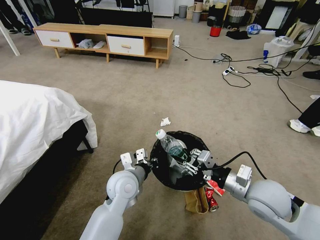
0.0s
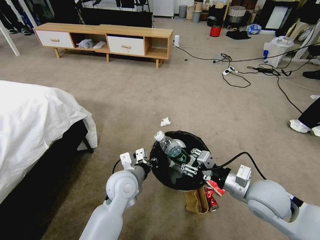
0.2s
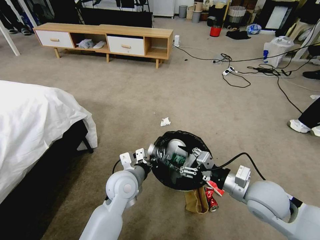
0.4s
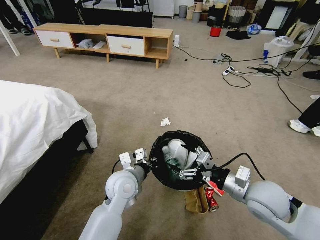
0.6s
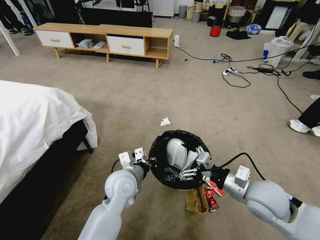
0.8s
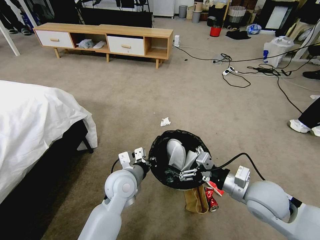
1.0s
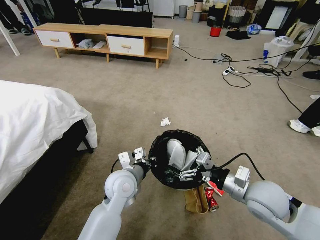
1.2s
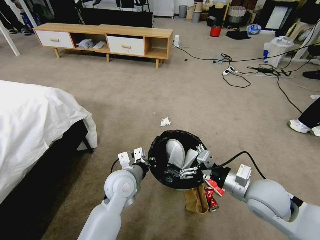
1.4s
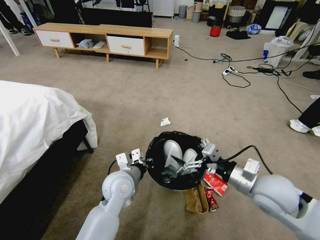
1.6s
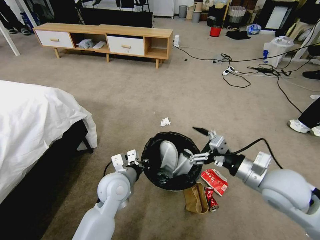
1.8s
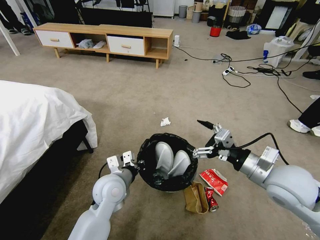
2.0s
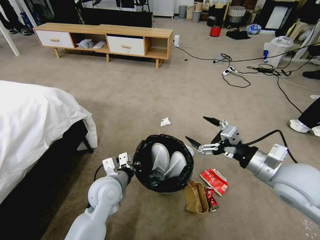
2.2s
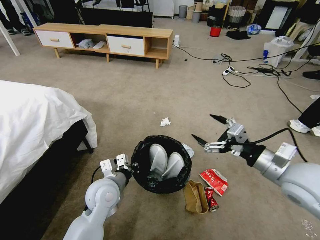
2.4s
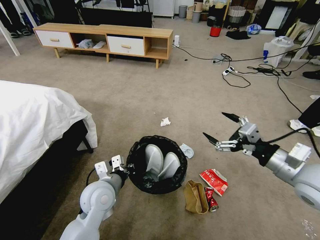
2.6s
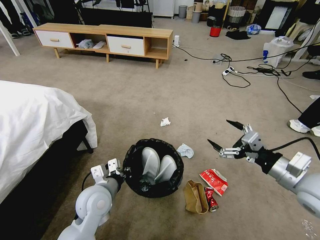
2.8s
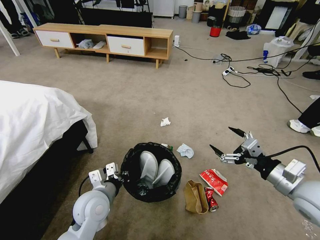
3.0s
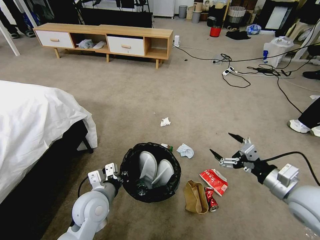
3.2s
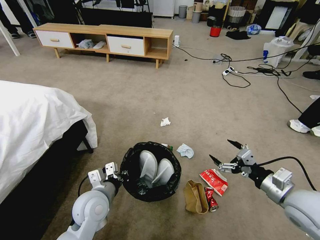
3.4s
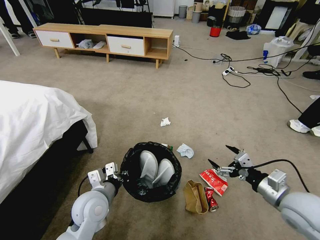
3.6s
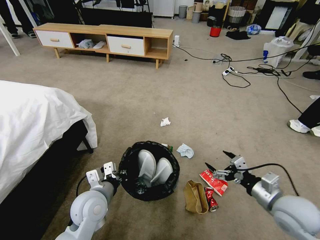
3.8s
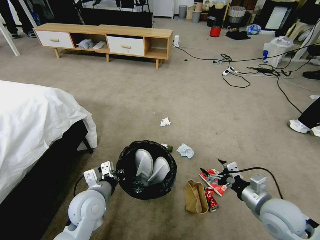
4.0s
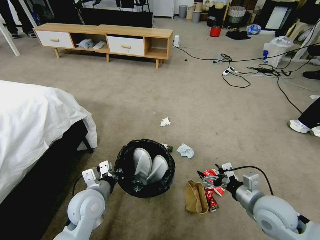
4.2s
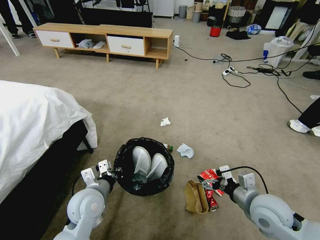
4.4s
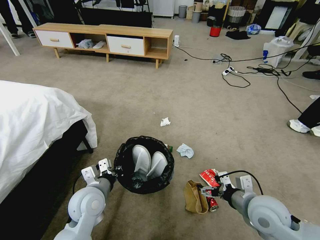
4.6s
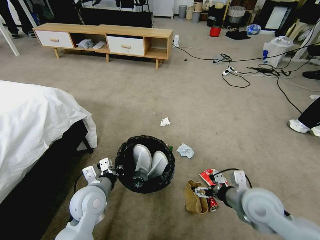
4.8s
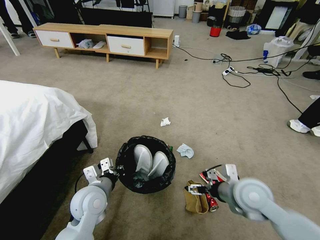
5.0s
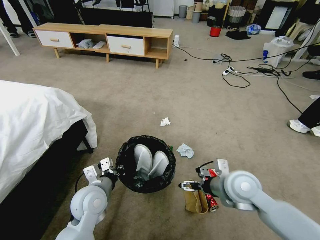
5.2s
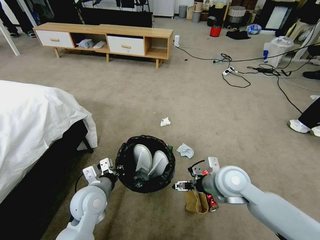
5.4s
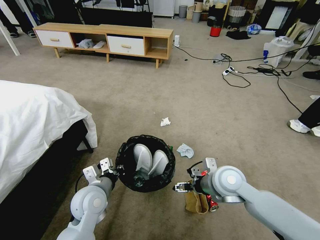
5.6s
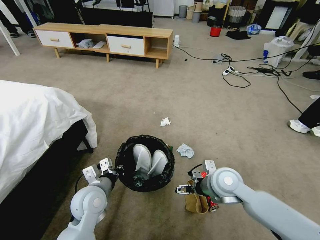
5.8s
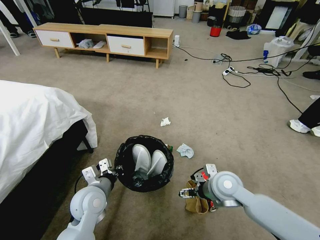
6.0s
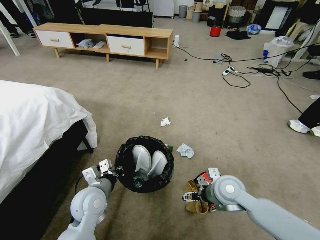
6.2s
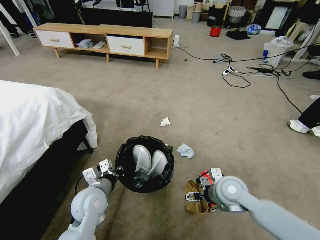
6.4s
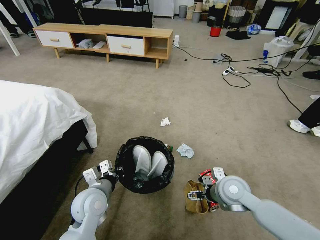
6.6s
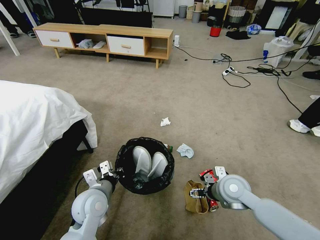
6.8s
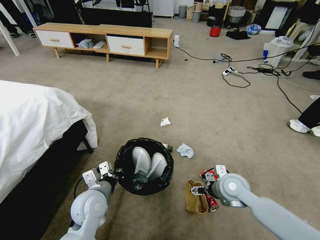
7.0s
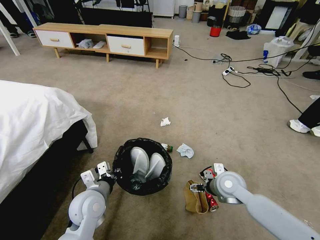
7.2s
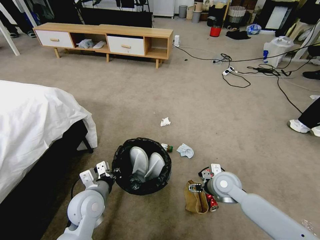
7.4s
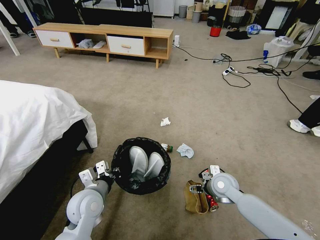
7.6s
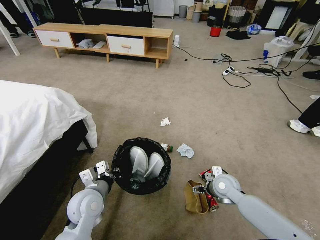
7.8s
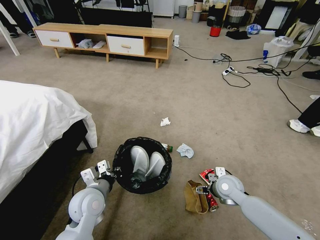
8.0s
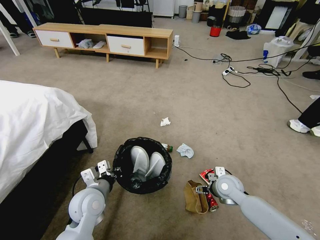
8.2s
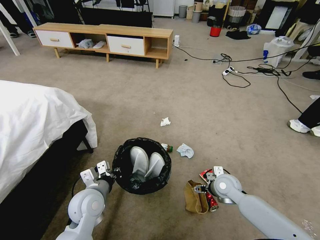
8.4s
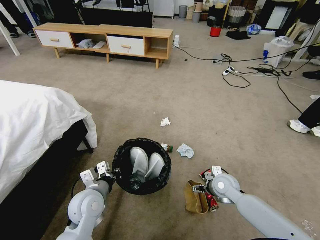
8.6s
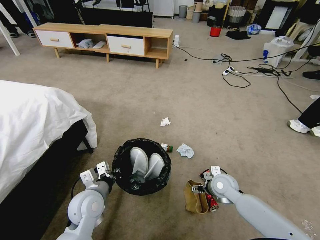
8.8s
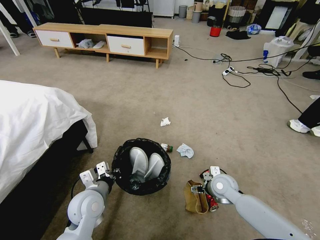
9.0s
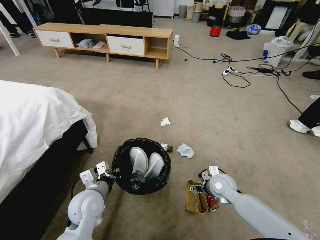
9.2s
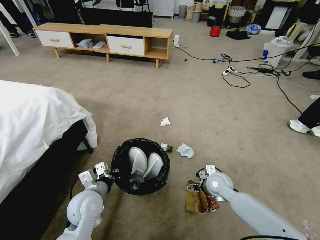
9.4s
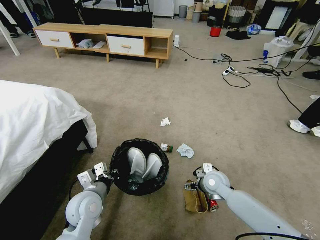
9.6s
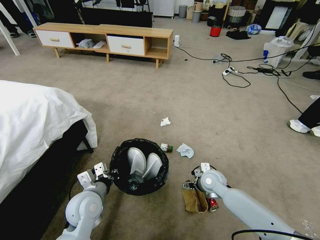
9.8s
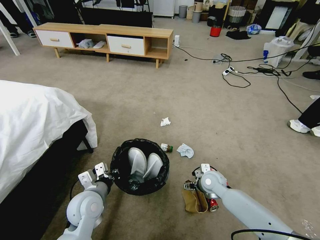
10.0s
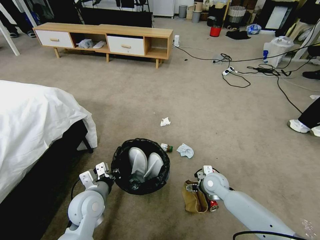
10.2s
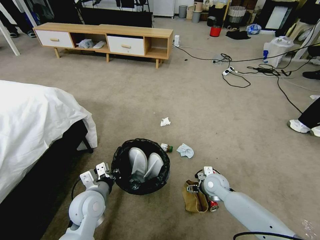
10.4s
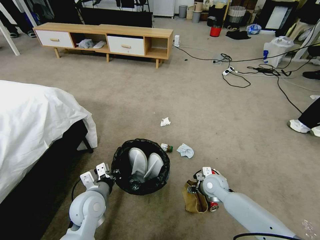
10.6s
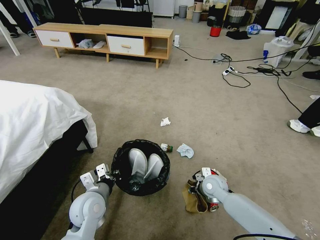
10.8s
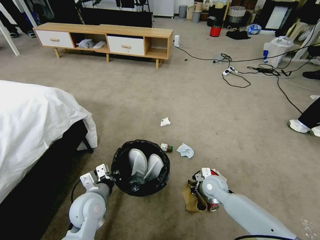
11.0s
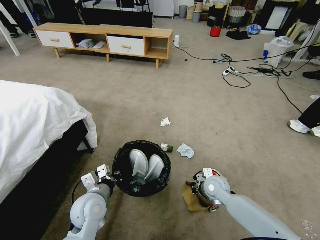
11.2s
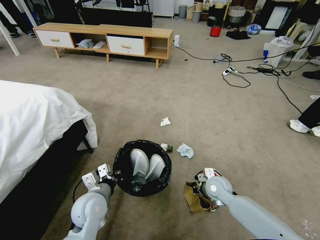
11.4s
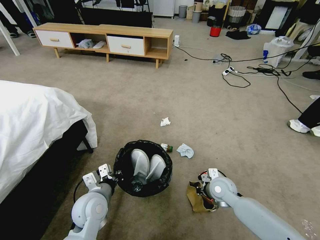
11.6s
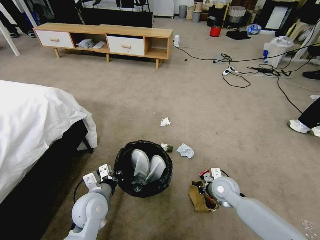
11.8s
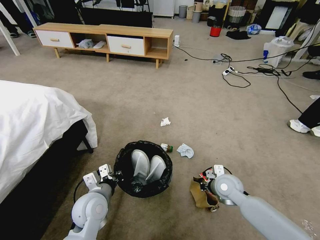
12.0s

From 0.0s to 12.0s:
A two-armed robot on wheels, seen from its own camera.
Task of the whole recording: Pick up the trash bin, then pick up the garbage from the floor and place it into the trash bin.
From 0.0s to 1.6s: The right gripper opens its fingers.
From 1.6s to 3.0s: The right gripper travels to the right by some 10 cm. Meanwhile the left gripper moves to the left and backward, some 10 cm.
From 3.0s to 4.4s: The right gripper heads downward and to the left, covering about 10 cm.
From 4.4s to 6.0s: The right gripper goes about 10 cm to the left and forward.
From 6.0s to 7.6s: The right gripper goes approximately 10 cm downward.
From 7.6s to 10.4s: The grippers stay close to where they were, moving slightly.
From 10.4s to 12.0s: The right gripper changes place by approximately 5 cm, and closes its fingers.

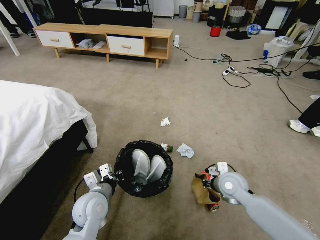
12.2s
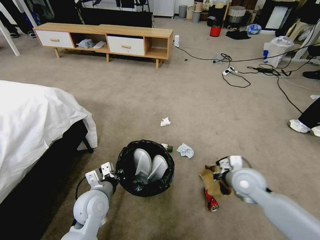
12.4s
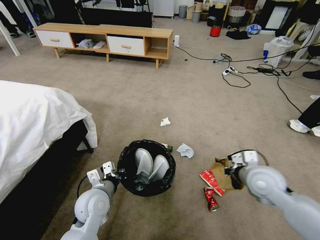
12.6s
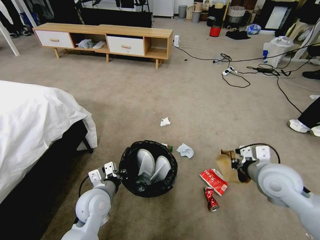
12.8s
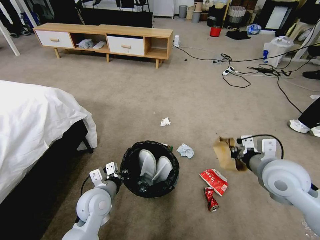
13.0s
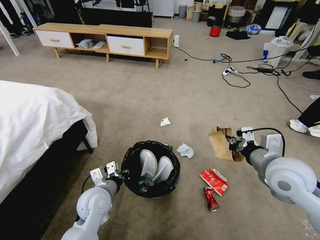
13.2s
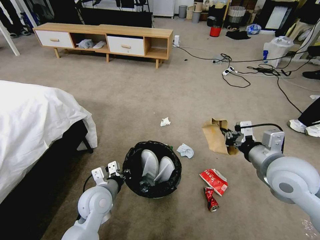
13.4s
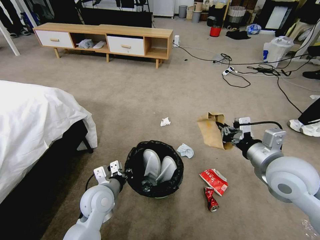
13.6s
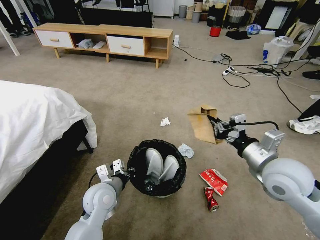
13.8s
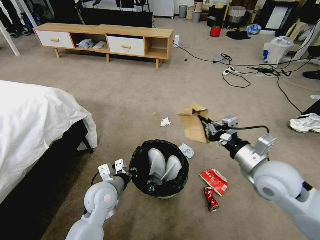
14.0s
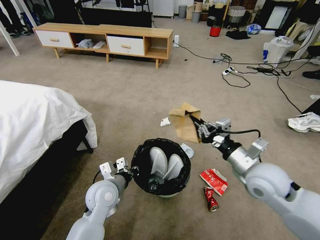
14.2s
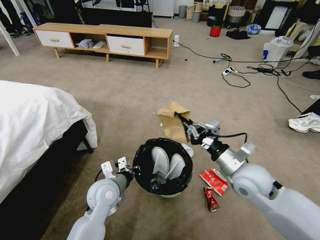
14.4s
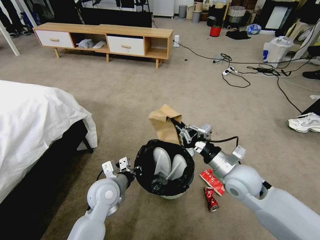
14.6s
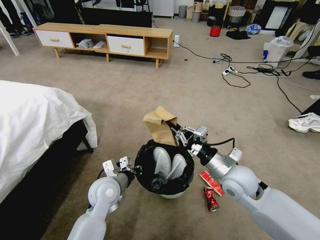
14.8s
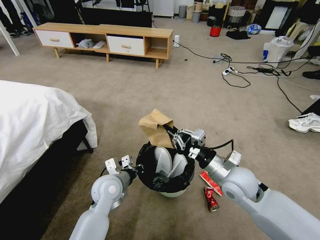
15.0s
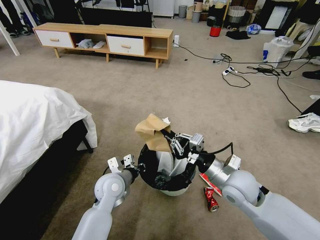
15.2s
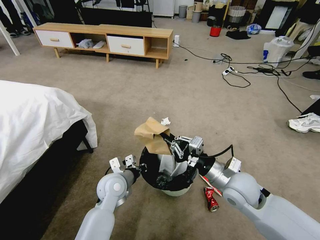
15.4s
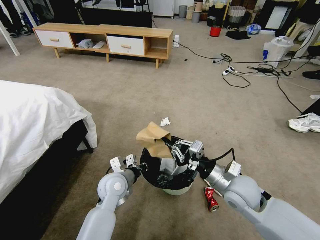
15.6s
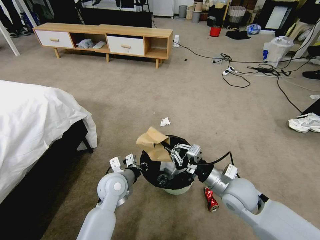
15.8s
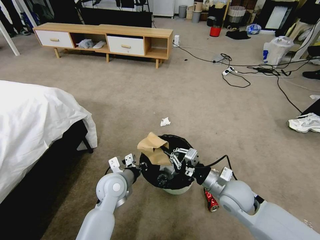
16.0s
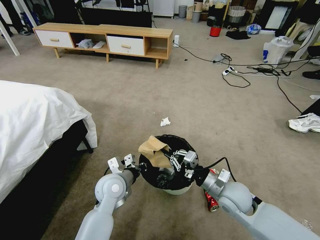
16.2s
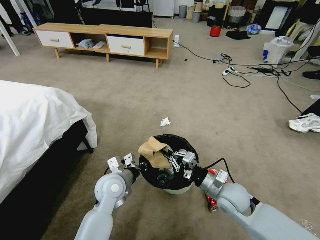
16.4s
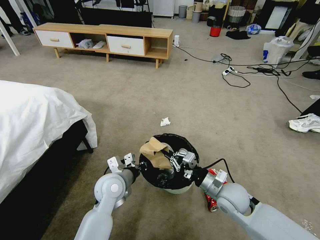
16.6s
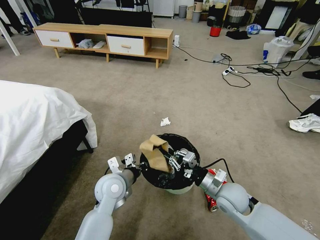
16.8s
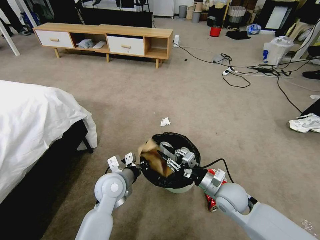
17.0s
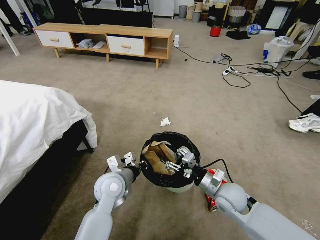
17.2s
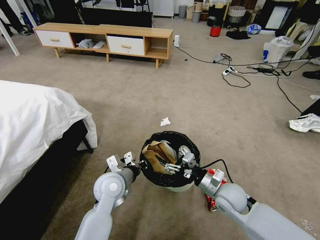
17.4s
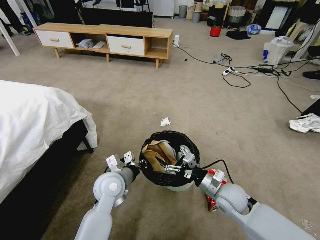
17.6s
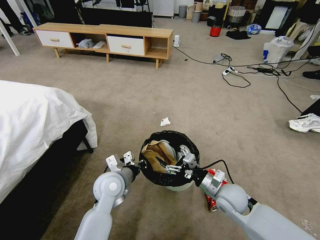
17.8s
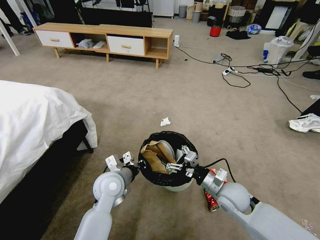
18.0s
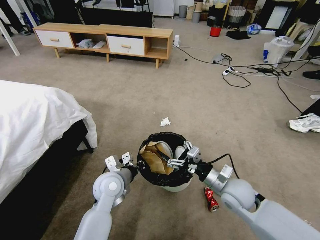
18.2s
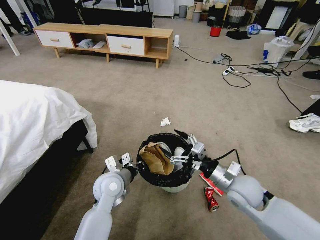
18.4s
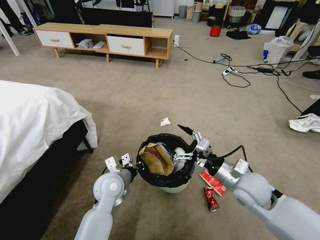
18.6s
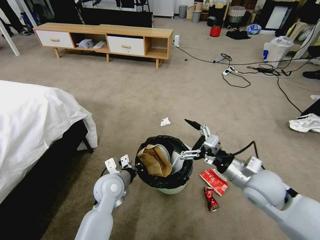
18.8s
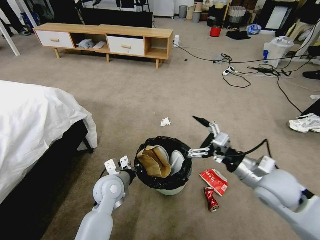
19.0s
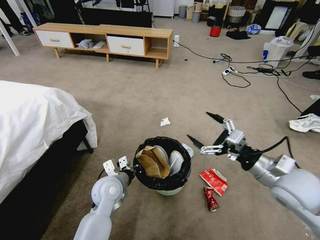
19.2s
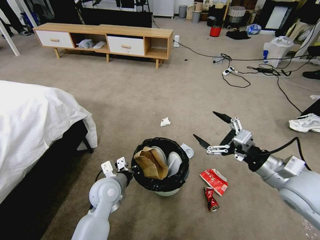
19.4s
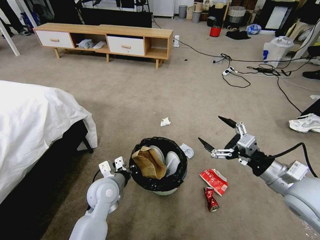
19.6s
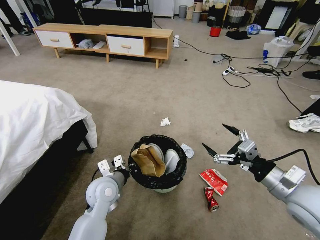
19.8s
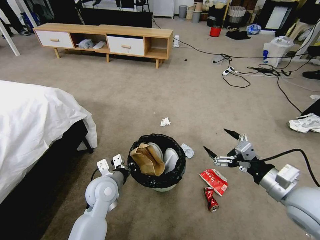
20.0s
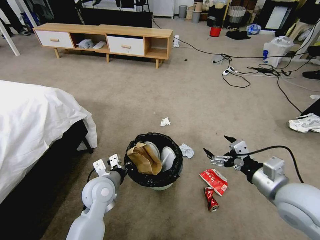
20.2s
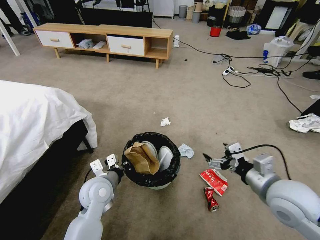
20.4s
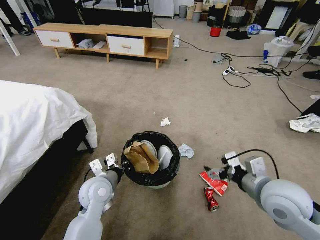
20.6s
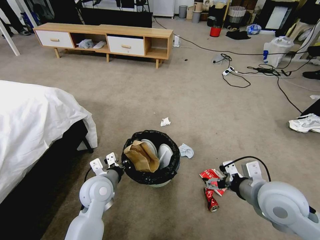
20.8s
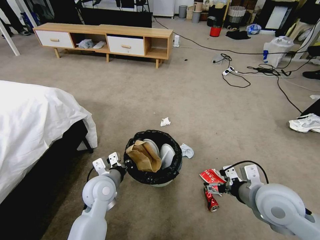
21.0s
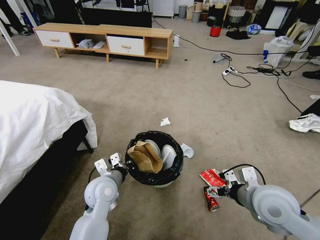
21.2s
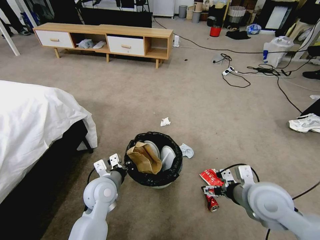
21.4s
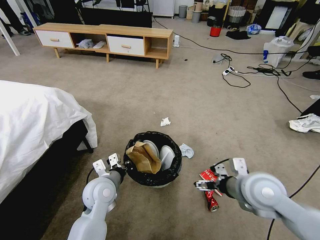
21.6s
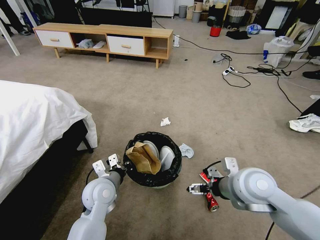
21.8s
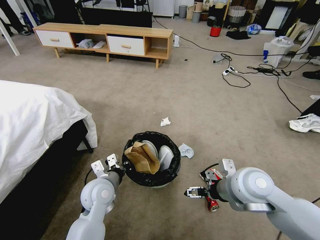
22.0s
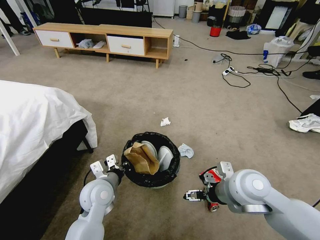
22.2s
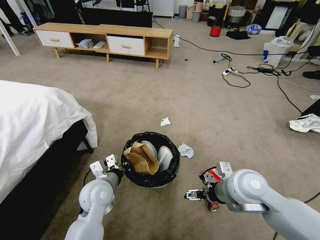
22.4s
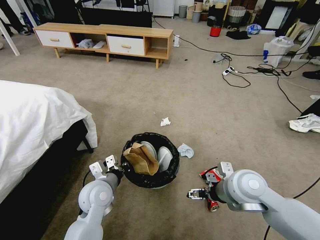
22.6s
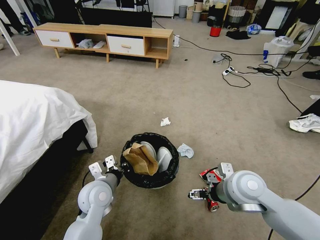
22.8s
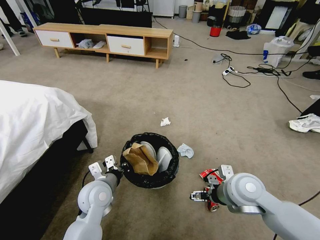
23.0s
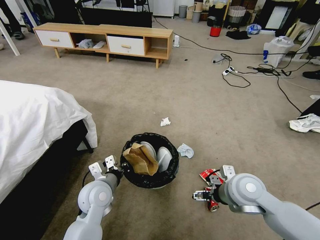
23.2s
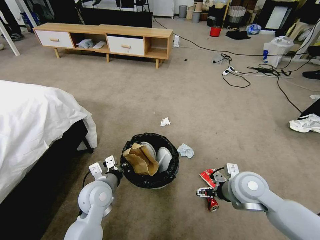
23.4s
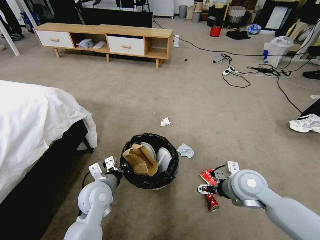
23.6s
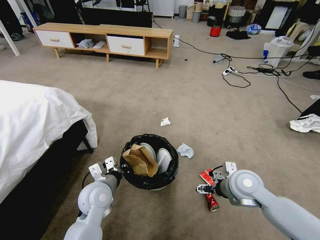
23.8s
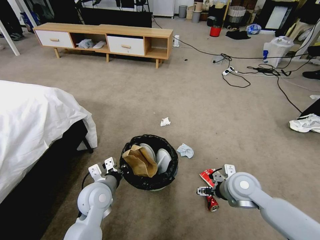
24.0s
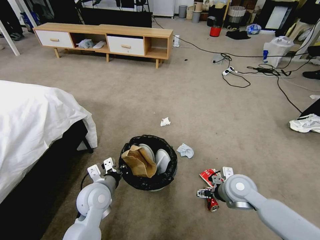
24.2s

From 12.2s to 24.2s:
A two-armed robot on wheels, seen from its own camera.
Task of the whole recording: Pick up the trash bin, then pick up the garbage from the floor and place it into the trash bin.
From 12.2s to 13.8s: The right gripper travels upward by about 15 cm.
From 13.8s to 15.2s: The right gripper is displaced downward and to the left by roughly 10 cm.
From 15.2s to 16.6s: The right gripper moves downward, some 10 cm.
From 16.6s to 18.2s: The right gripper opens up.
From 18.2s to 19.8s: The right gripper travels to the right, upward and backward by roughly 15 cm.
From 19.8s to 21.2s: The right gripper is displaced to the left by approximately 5 cm.
From 21.2s to 22.6s: The right gripper ends up approximately 5 cm from where it was.
From 22.6s to 24.2s: The right gripper heads downward, covering roughly 10 cm.
